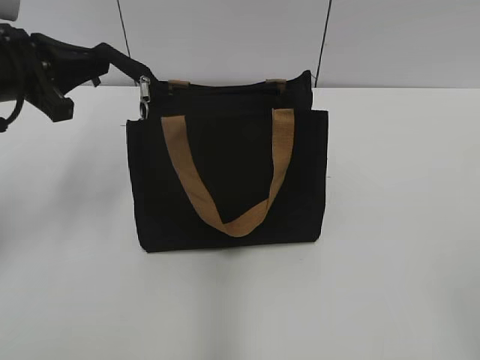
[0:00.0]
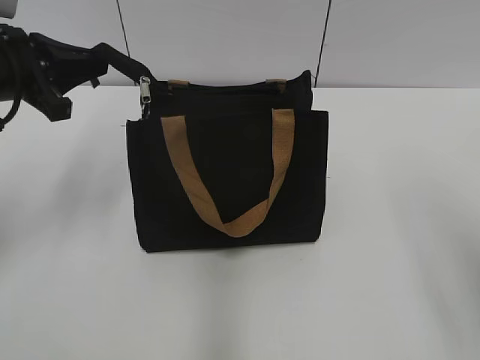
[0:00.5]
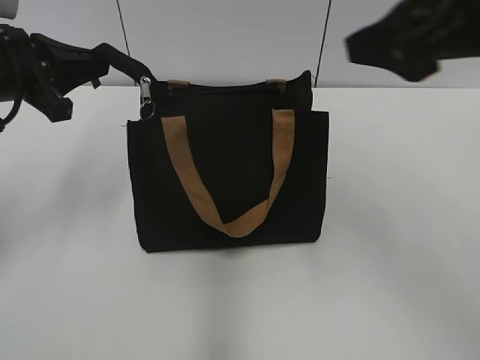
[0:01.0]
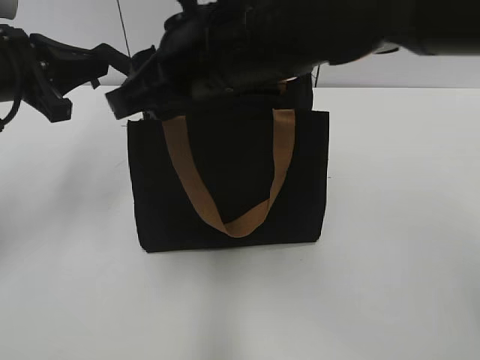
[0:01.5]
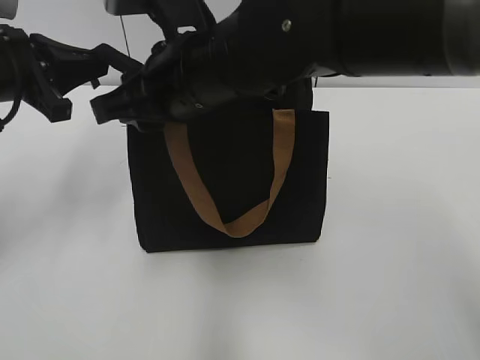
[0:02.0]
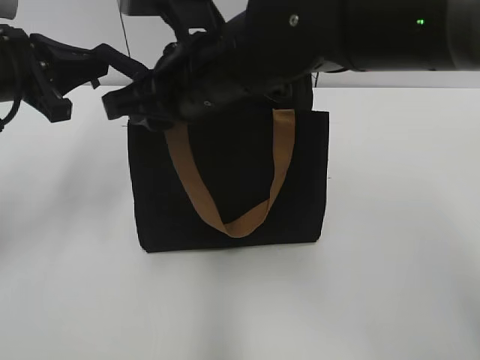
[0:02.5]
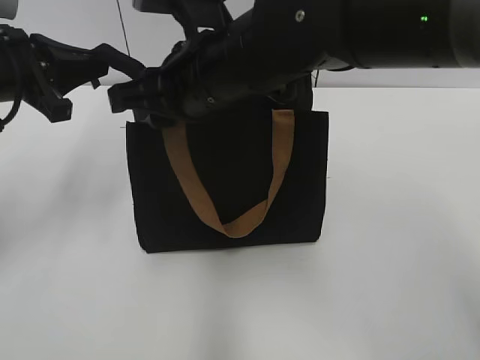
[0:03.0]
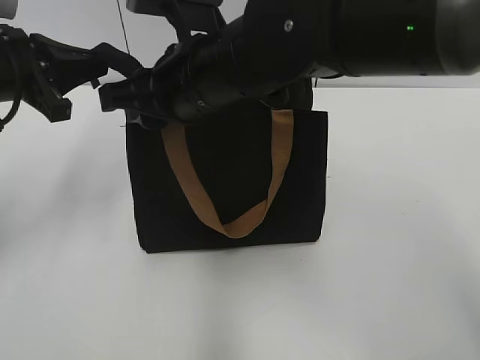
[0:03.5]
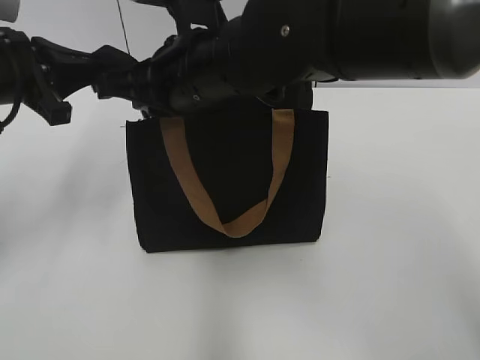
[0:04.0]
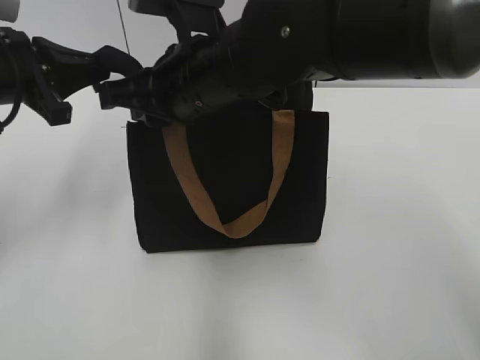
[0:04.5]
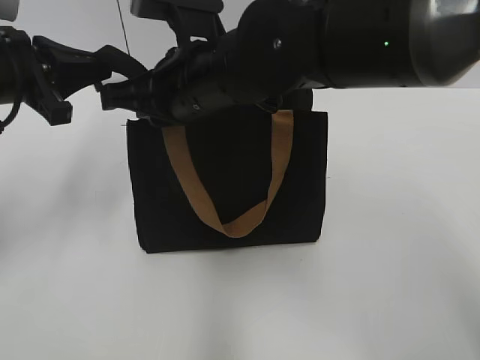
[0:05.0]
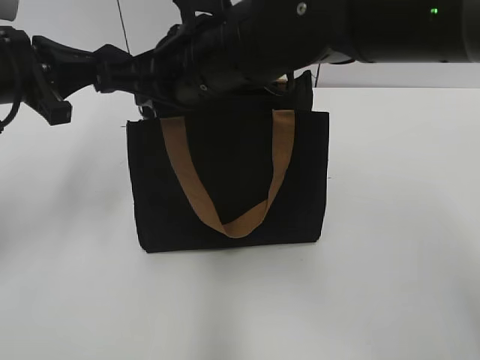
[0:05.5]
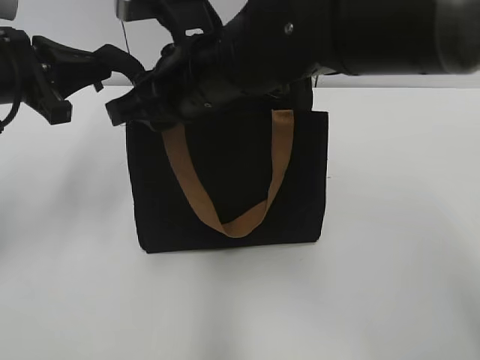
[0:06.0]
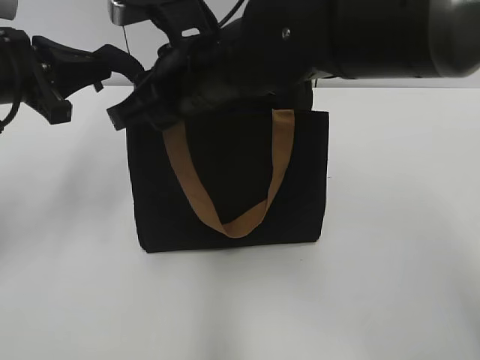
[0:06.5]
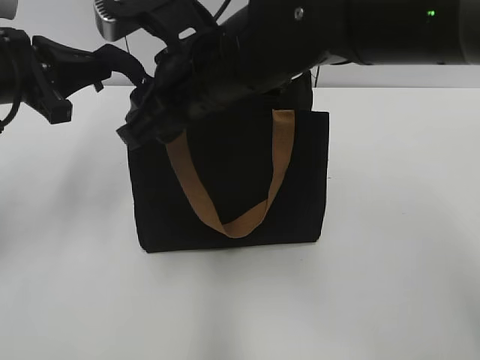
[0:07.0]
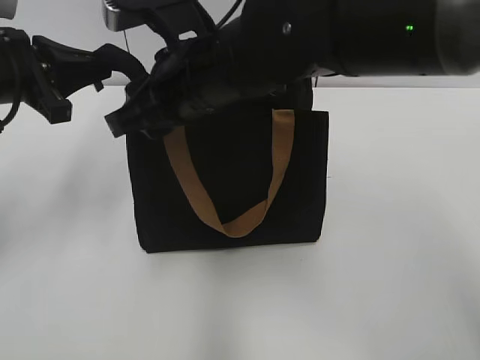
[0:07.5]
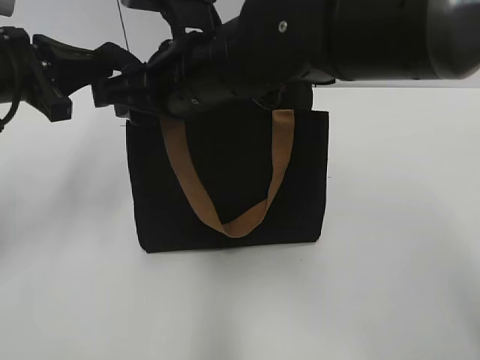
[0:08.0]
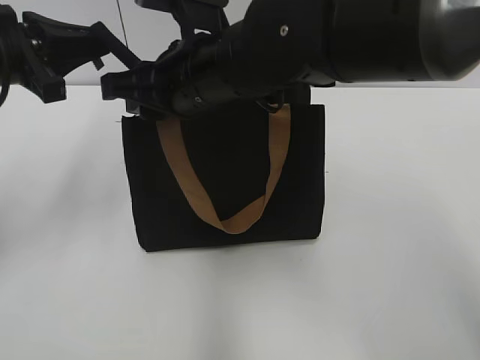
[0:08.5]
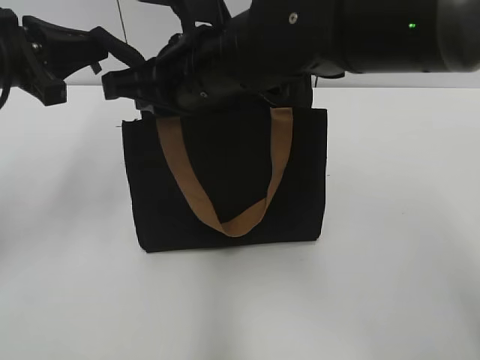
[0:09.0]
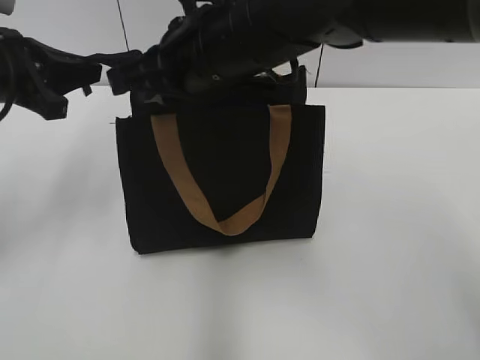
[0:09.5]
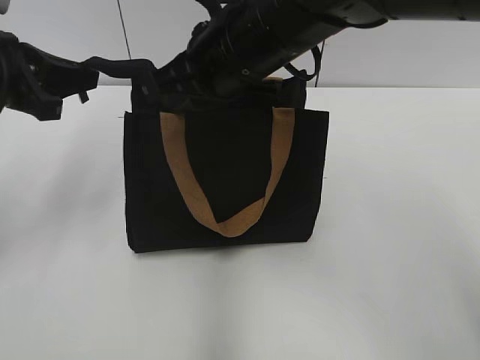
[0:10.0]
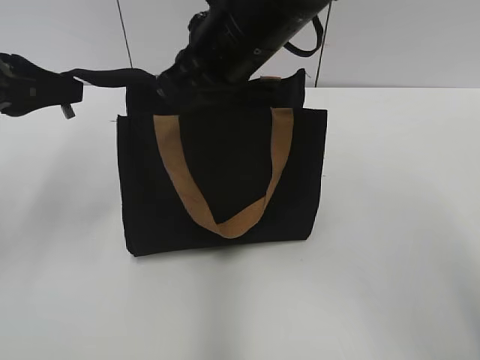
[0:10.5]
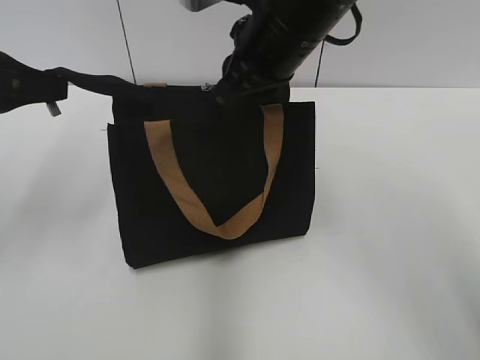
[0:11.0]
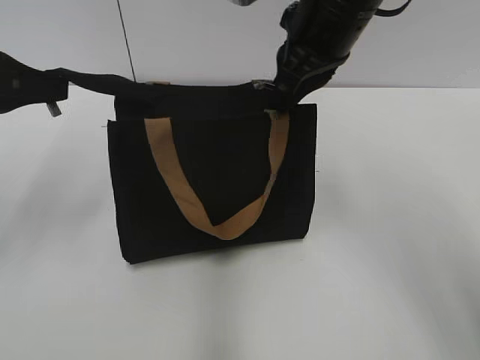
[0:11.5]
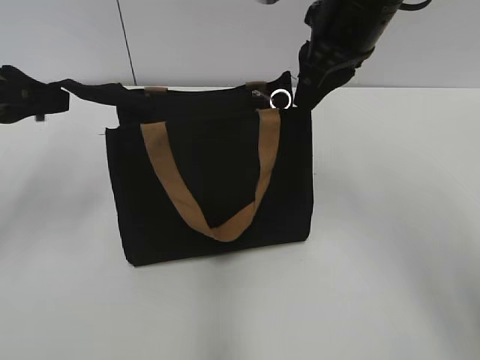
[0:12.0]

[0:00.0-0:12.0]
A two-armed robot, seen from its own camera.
Step, 0:00.0 to 0:12.0: Zip up the bag with your right hand.
0:00.0 to 0:02.0: The right gripper is displaced to the left and forward by roughly 40 cm, and closes up.
0:02.0 to 0:04.0: The right gripper closes.
0:04.0 to 0:06.0: The right gripper opens up.
0:06.0 to 0:08.0: There are only small adjustments of the grippers.
0:08.0 to 0:10.0: The right gripper closes up.
0:10.0 to 0:12.0: The right gripper heads to the right, covering roughly 10 cm.

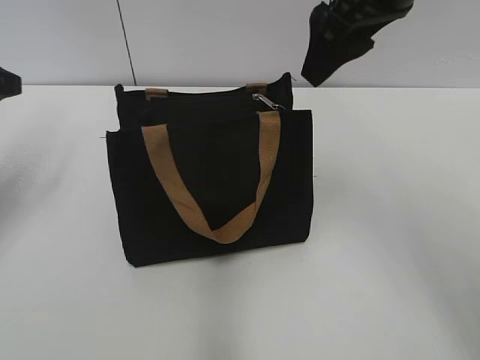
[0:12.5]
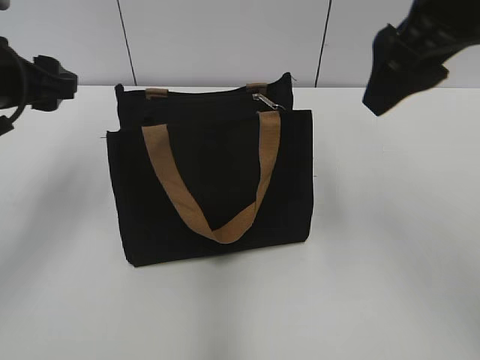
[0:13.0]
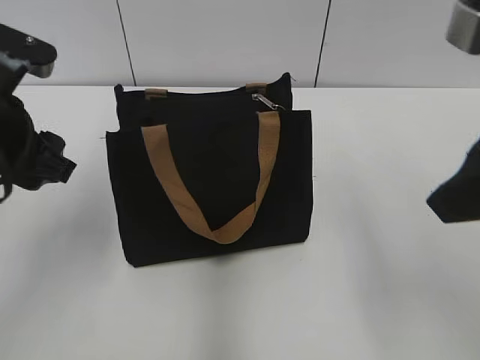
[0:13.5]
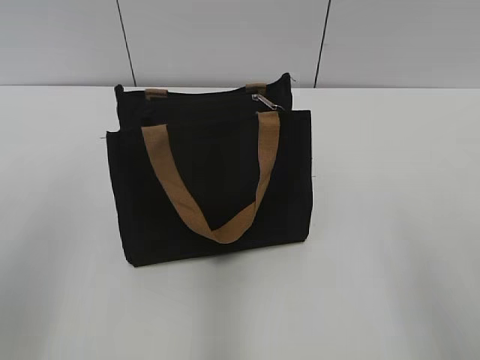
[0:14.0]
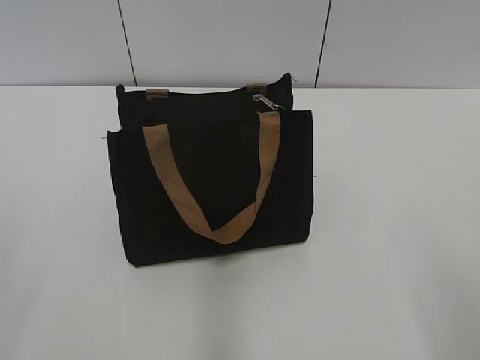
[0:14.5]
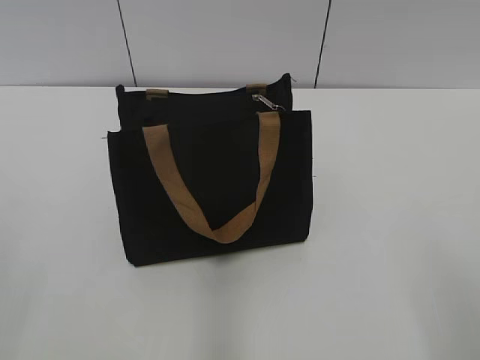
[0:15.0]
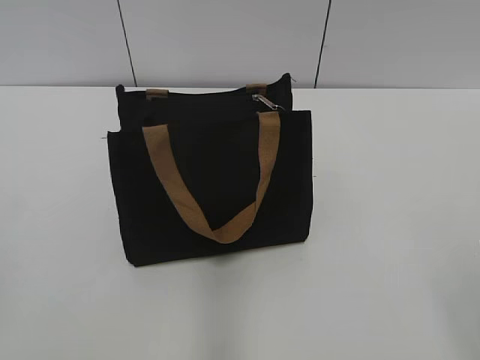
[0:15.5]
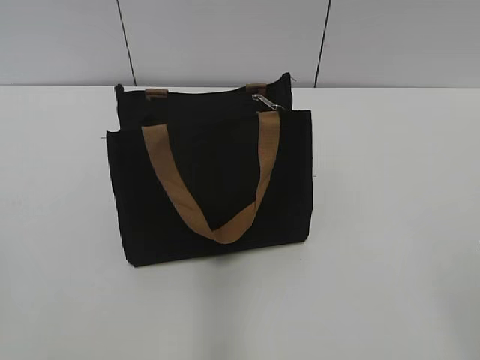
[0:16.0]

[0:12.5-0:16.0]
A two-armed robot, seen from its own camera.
0:12.5 to 0:14.5: The left gripper heads backward, covering approximately 30 cm; the right gripper goes about 35 cm backward and to the right.

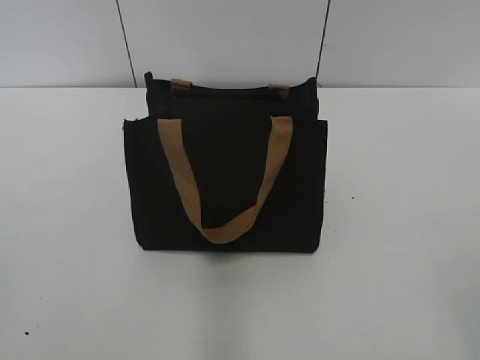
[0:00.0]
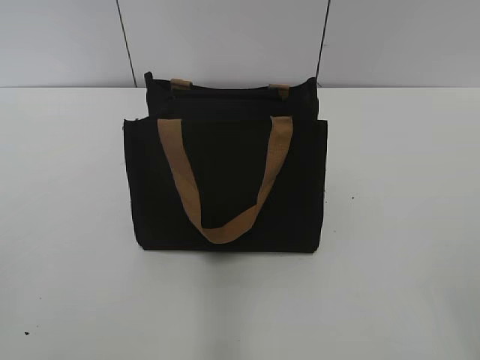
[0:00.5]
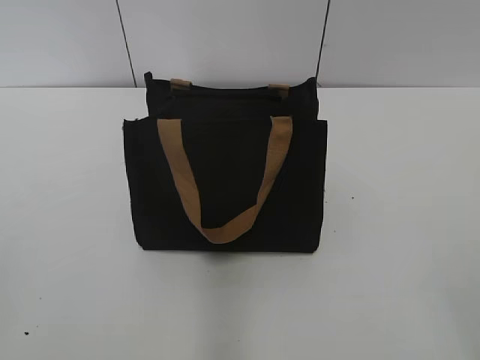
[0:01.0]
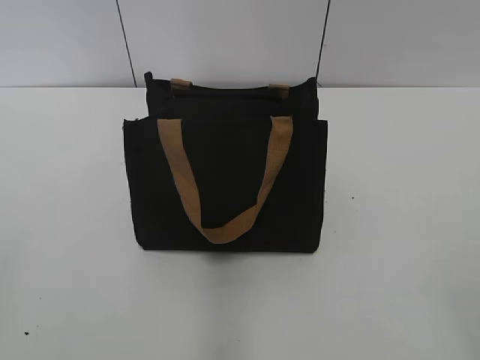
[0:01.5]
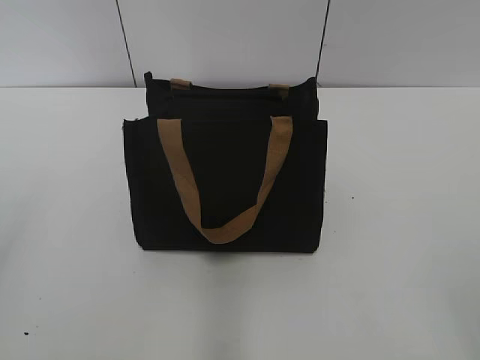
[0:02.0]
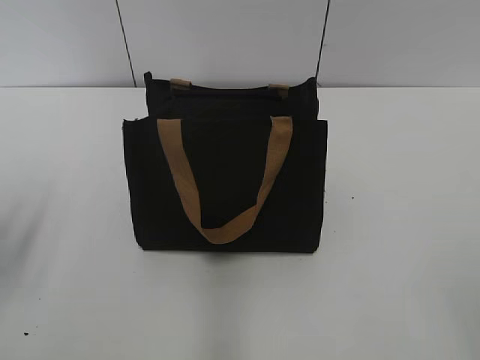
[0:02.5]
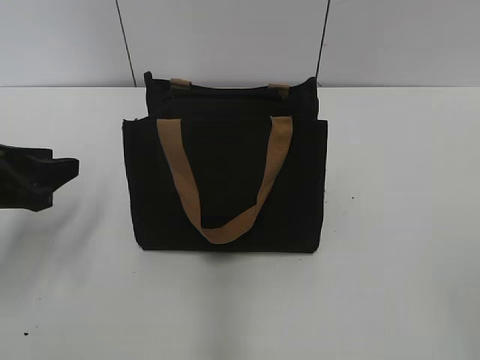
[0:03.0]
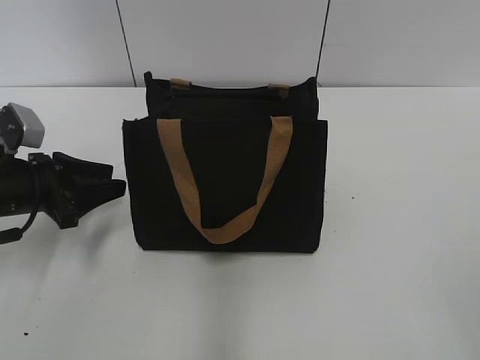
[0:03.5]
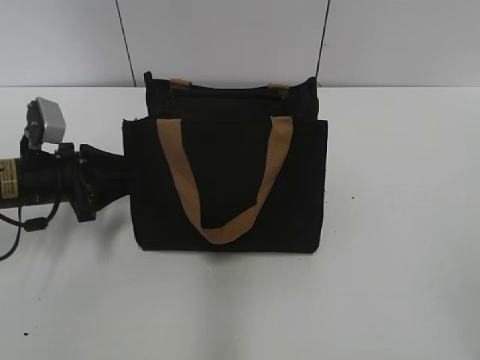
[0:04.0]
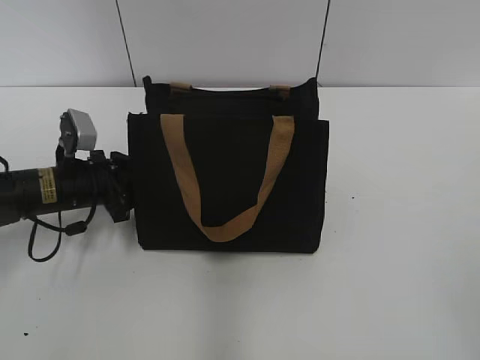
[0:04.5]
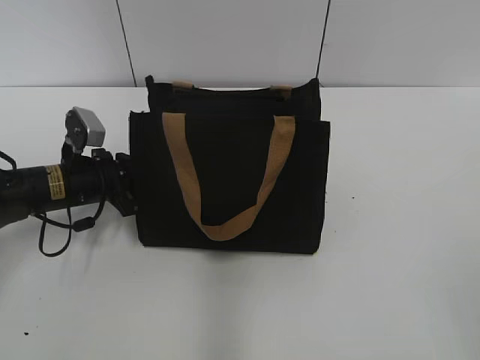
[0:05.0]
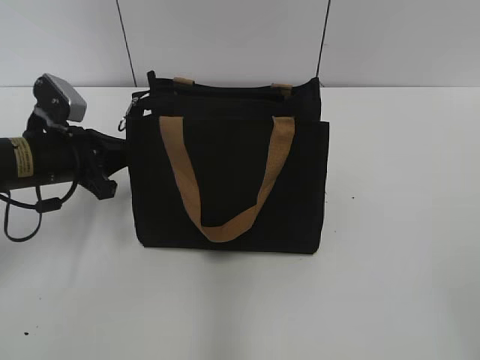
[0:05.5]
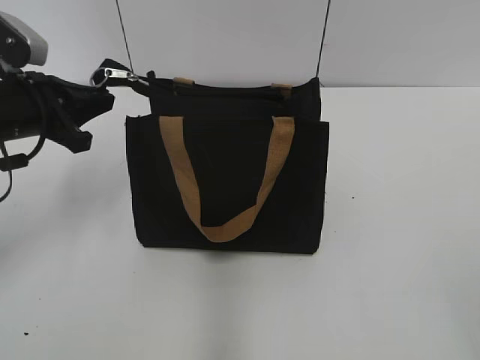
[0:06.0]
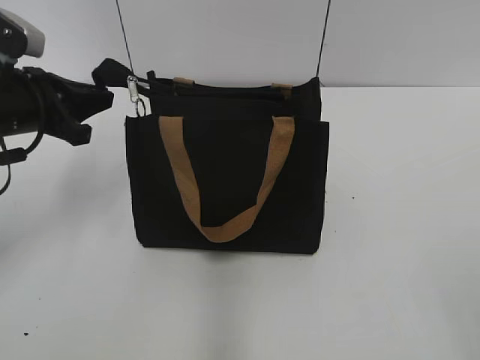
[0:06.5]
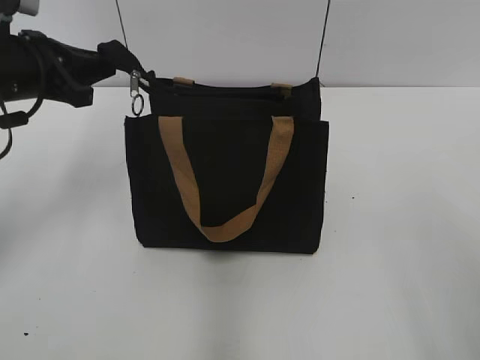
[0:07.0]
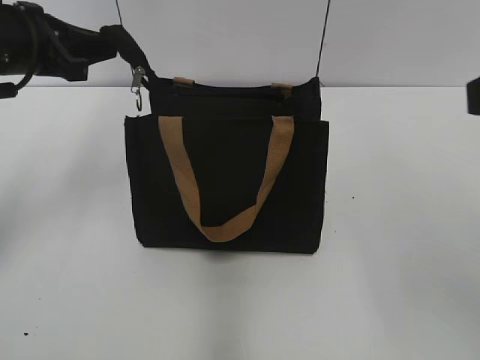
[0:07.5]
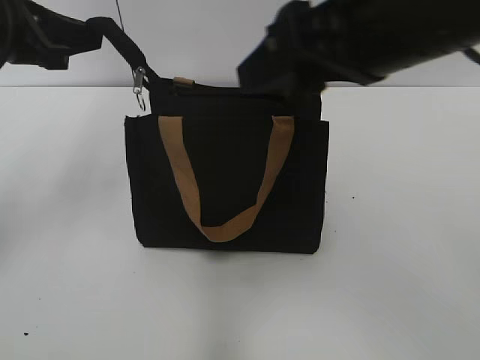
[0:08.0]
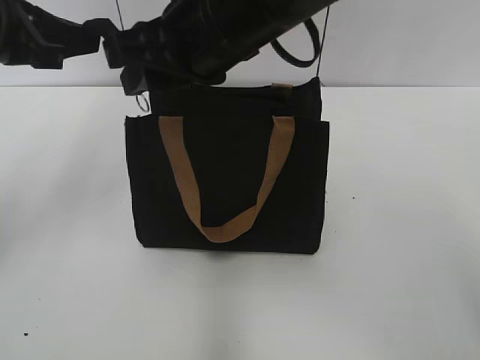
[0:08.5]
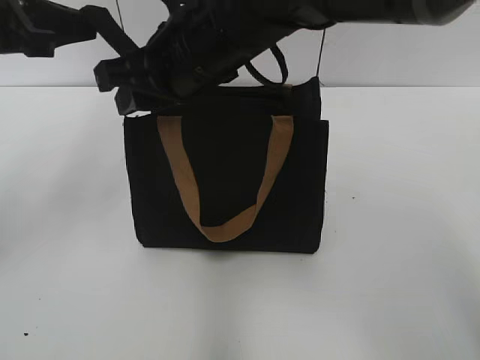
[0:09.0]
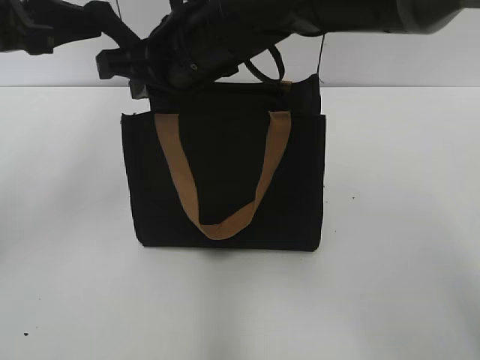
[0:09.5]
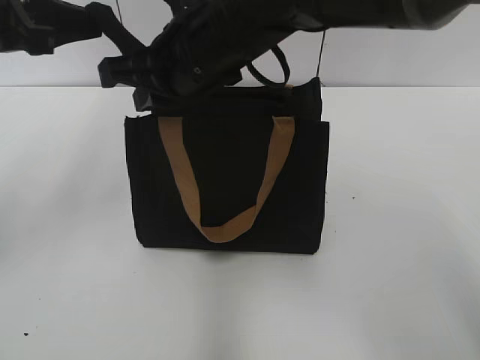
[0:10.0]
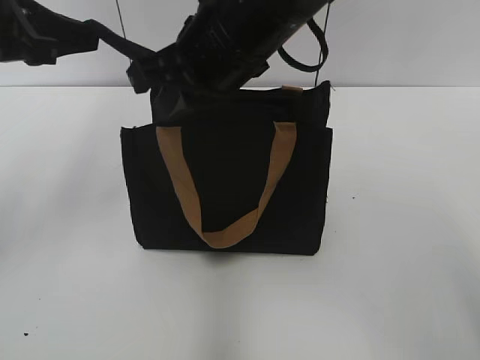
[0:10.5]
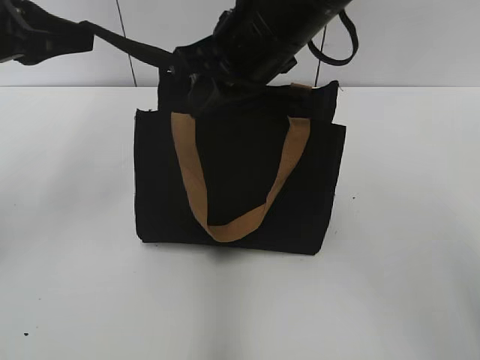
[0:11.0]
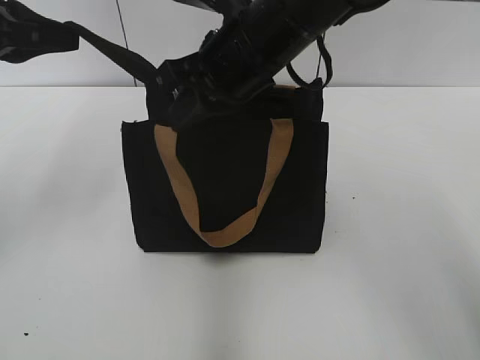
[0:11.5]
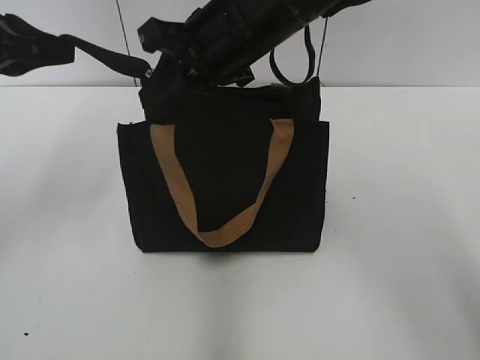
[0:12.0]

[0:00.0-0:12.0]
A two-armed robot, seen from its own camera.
0:02.0 to 0:04.0: The left gripper moves forward and downward, about 30 cm.
0:04.0 to 0:06.0: The left gripper heads upward, covering approximately 10 cm, and closes up.
0:06.0 to 0:08.0: The right gripper travels forward and to the left by about 30 cm, while the left gripper moves upward, about 10 cm.
0:08.0 to 0:10.0: The right gripper moves to the left, forward and downward, roughly 20 cm, and closes its fingers.
